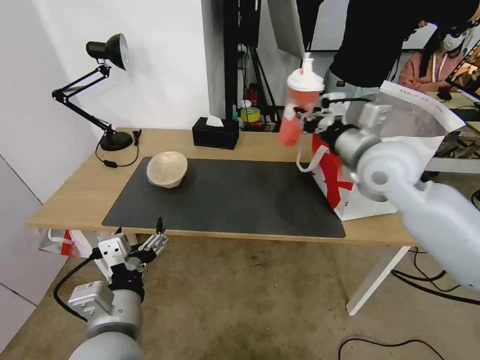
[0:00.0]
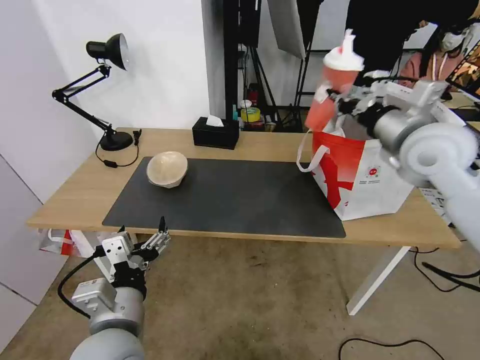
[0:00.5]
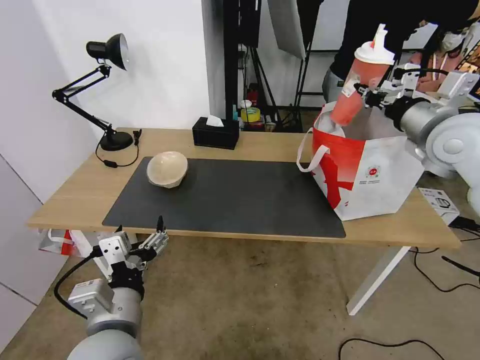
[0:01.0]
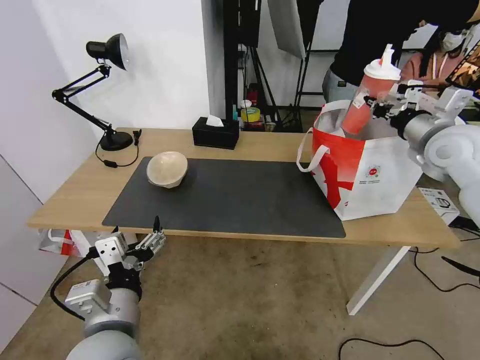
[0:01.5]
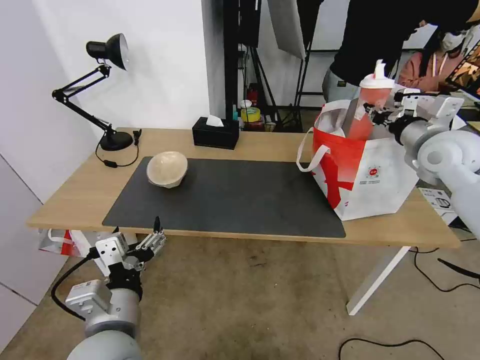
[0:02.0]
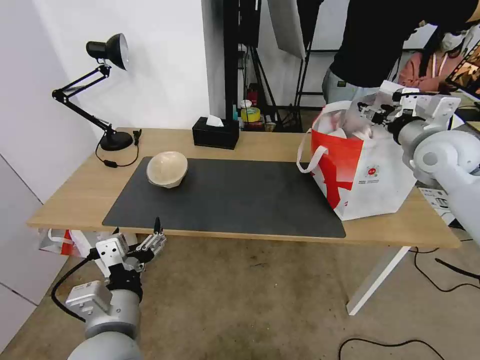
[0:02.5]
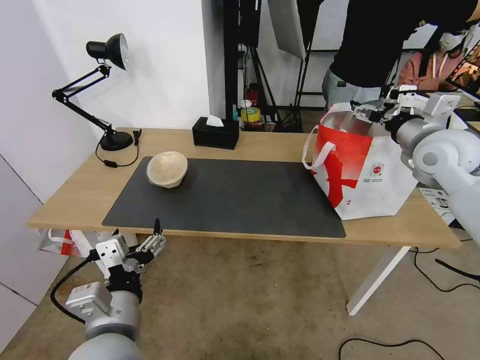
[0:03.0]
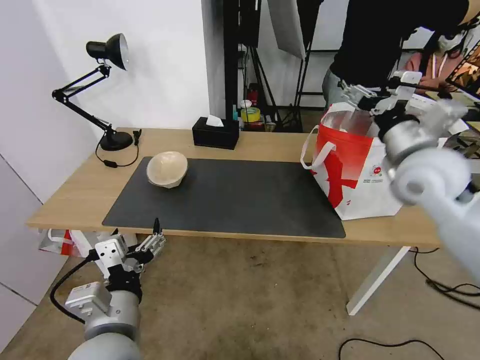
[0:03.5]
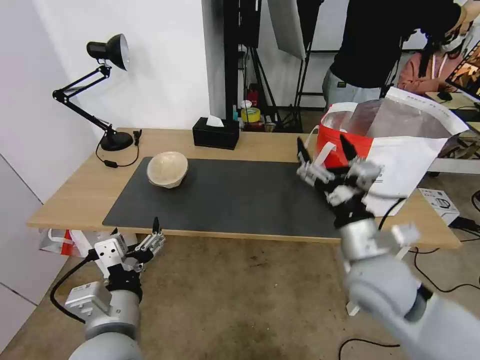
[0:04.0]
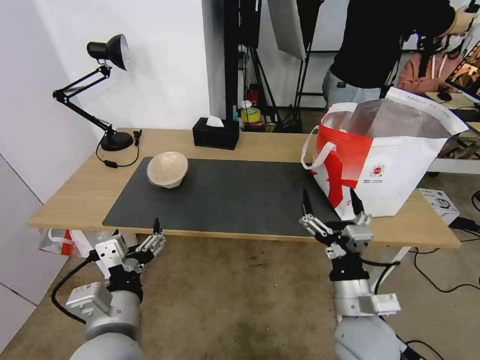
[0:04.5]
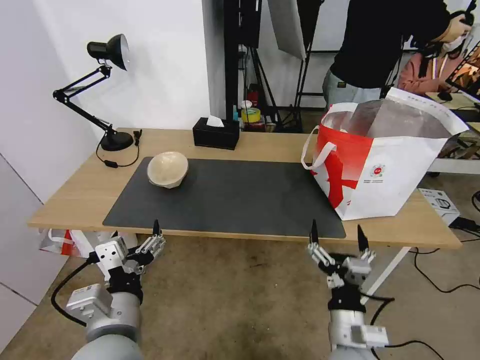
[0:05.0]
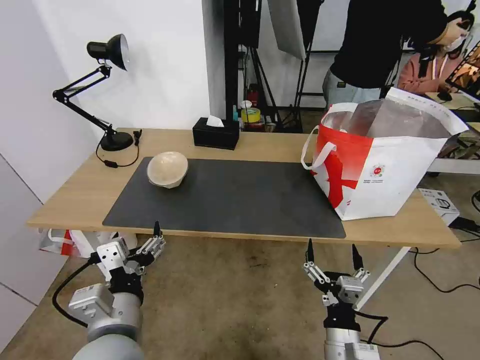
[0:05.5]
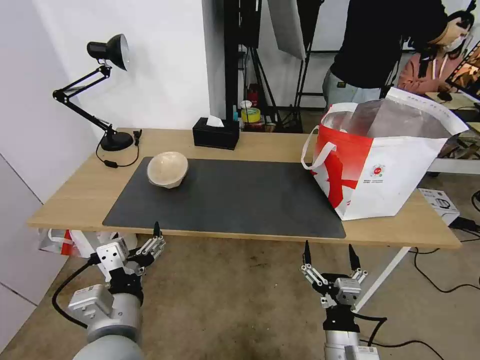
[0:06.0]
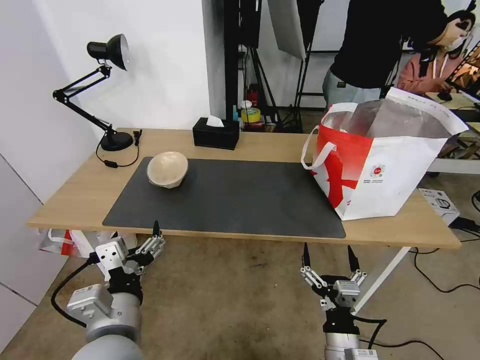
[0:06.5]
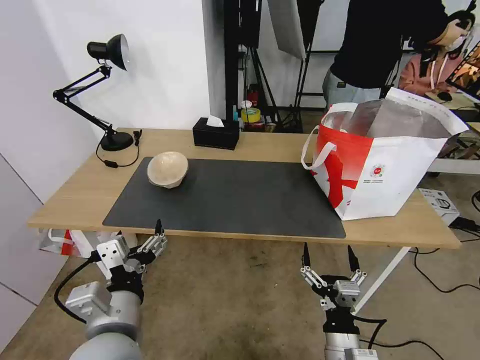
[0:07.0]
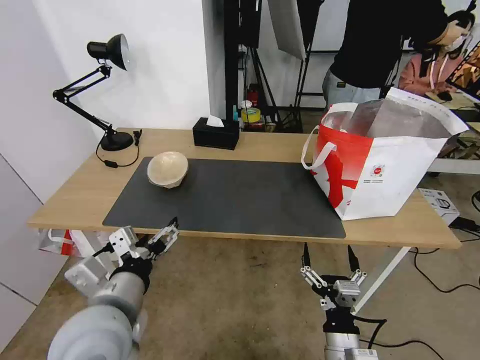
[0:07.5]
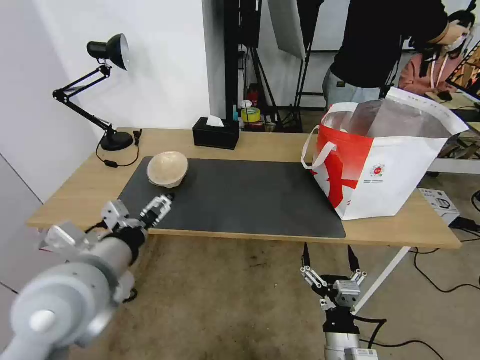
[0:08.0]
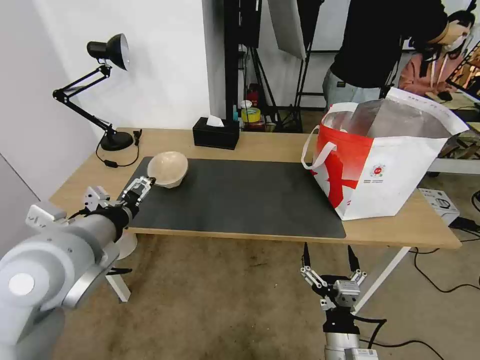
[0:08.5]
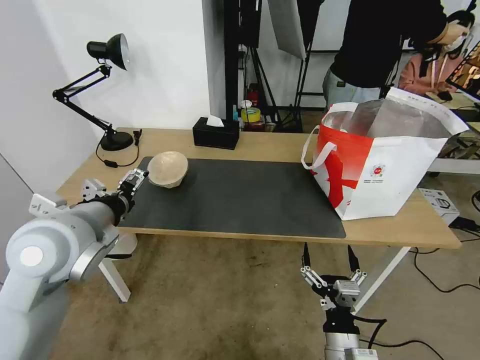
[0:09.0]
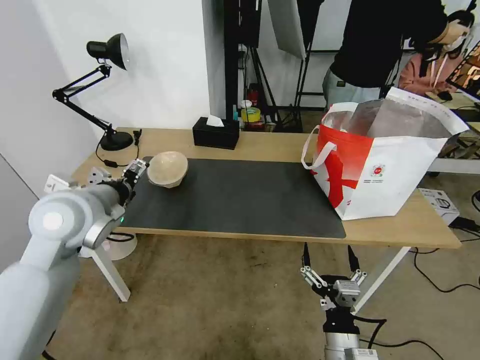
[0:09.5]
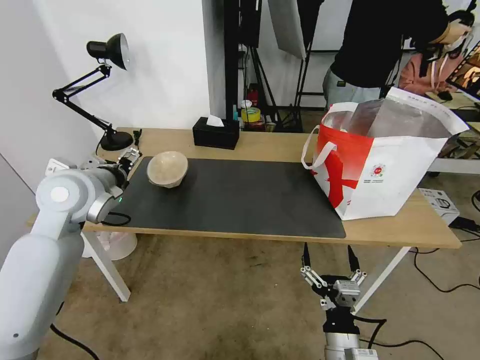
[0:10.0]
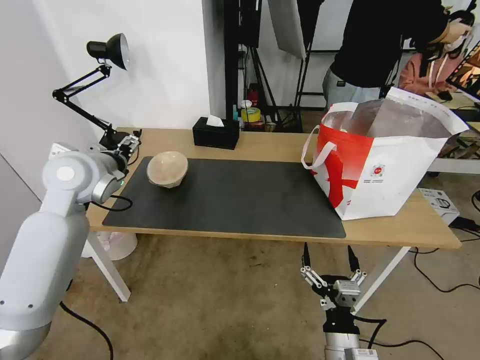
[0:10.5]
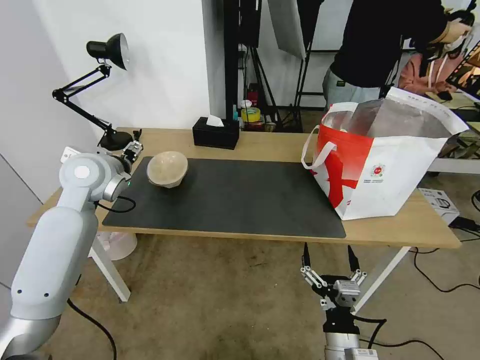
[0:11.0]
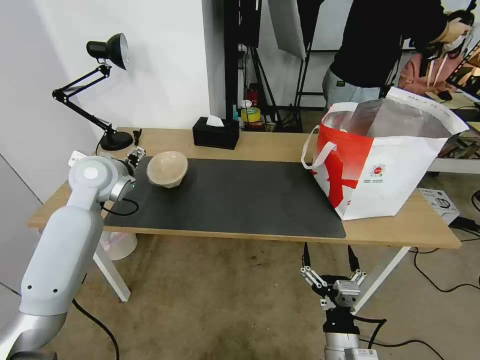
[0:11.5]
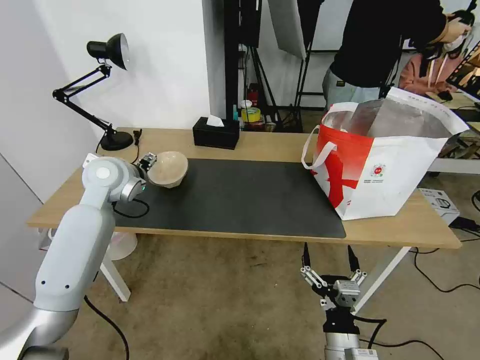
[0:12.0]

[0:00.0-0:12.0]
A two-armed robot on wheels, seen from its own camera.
Task of the whole recording: Pick up the trash from the table and place it into the takeout bag.
0:00.0 to 0:02.0: The right gripper heads to the right, covering approximately 15 cm.
0:02.0 to 0:04.0: The right gripper shifts roughly 30 cm backward, to the left and downward, and opens.
0:04.0 to 0:06.0: The right gripper moves downward and backward, about 20 cm.
0:06.0 to 0:08.0: The left gripper shifts approximately 10 cm upward and forward.
0:08.0 to 0:10.0: The left gripper is displaced forward and to the left by approximately 20 cm.
0:10.0 to 0:12.0: The left gripper goes approximately 10 cm forward.

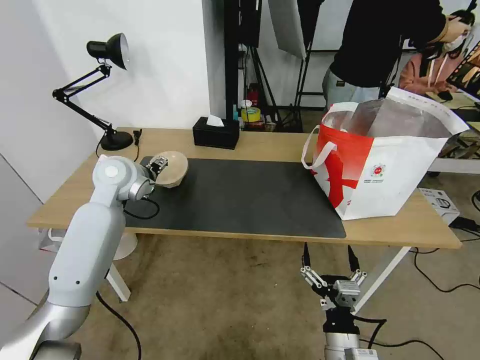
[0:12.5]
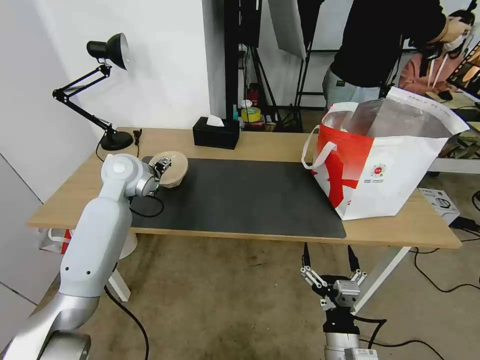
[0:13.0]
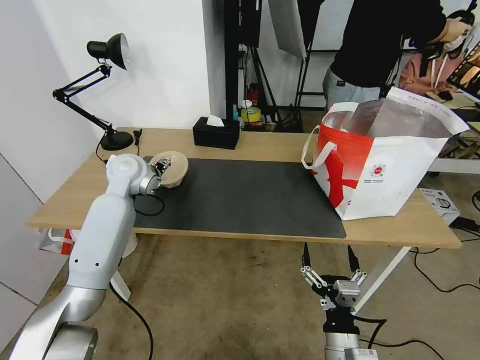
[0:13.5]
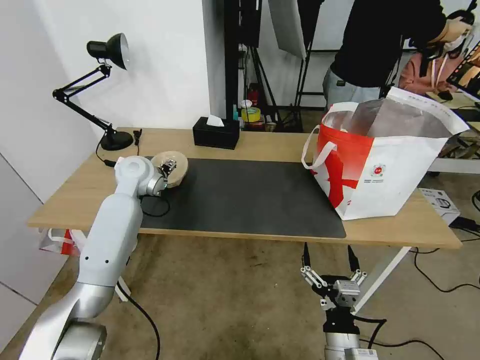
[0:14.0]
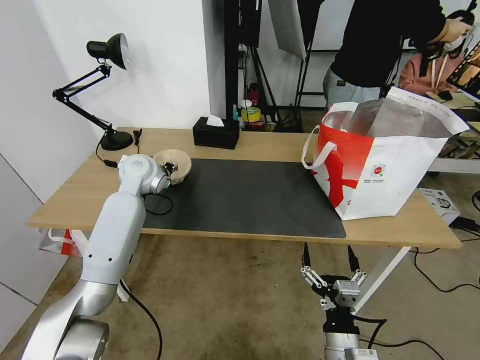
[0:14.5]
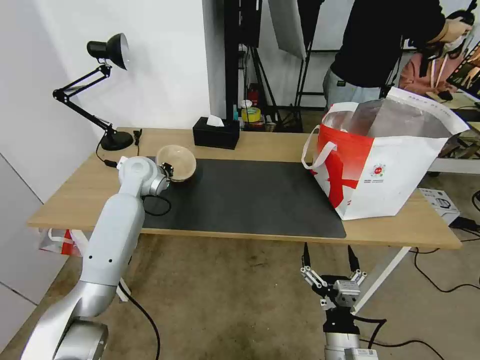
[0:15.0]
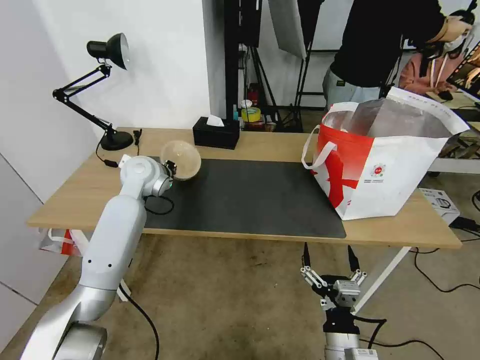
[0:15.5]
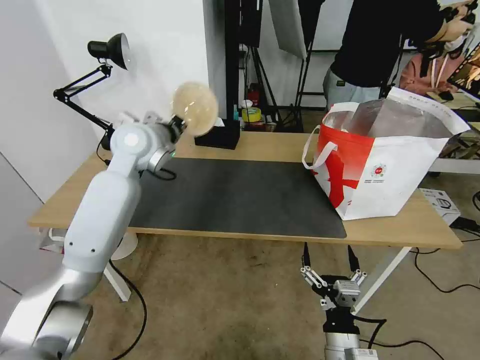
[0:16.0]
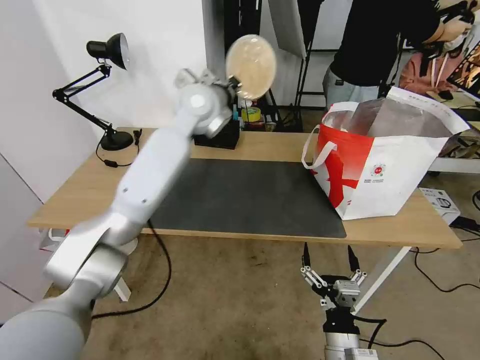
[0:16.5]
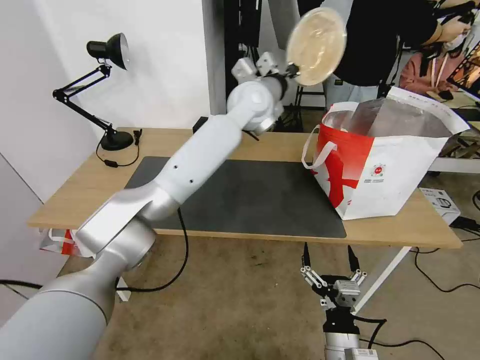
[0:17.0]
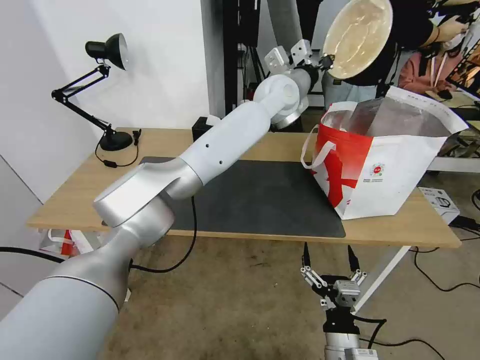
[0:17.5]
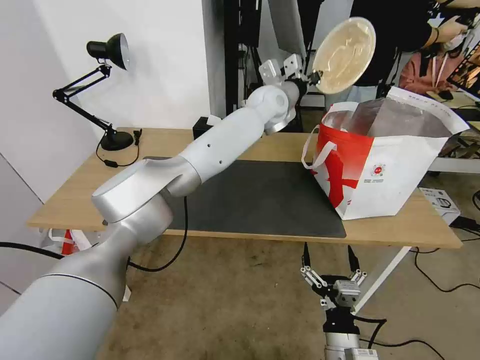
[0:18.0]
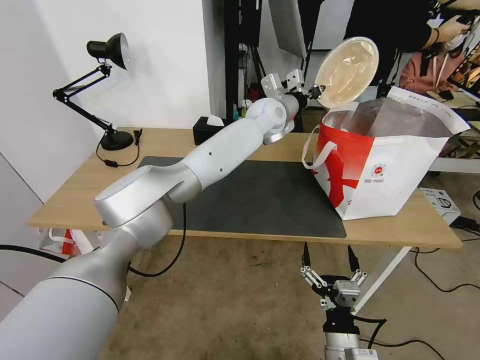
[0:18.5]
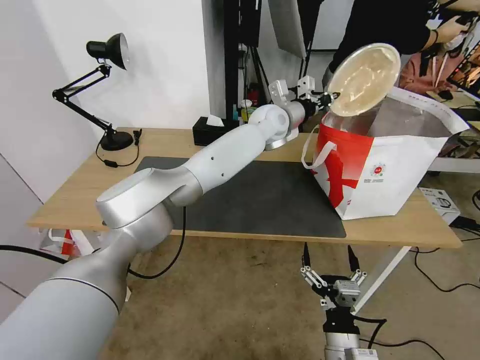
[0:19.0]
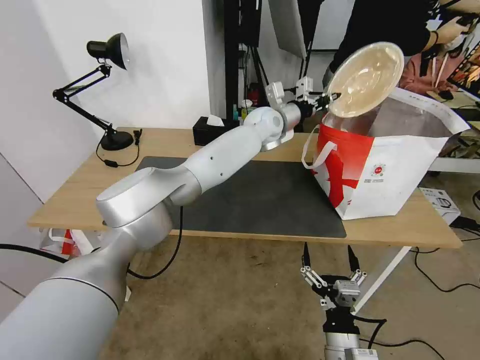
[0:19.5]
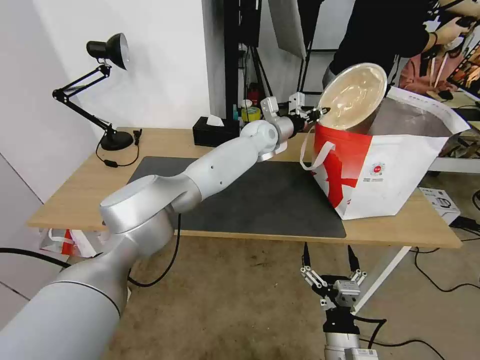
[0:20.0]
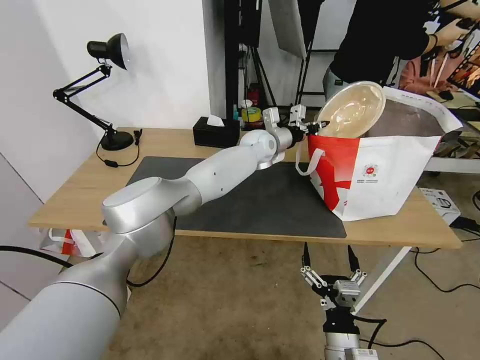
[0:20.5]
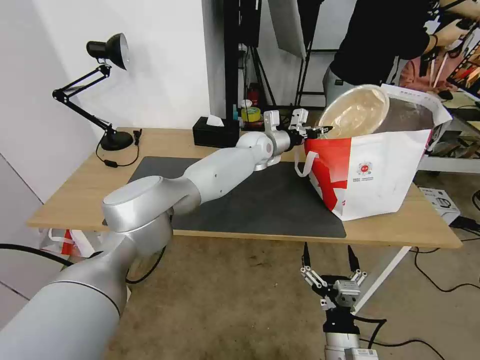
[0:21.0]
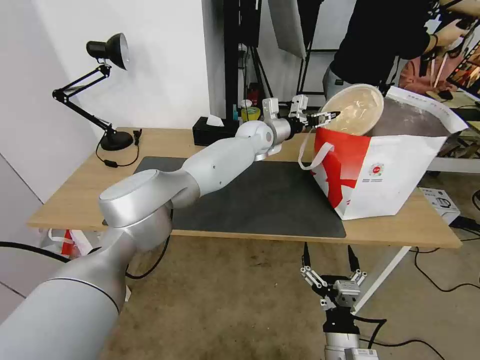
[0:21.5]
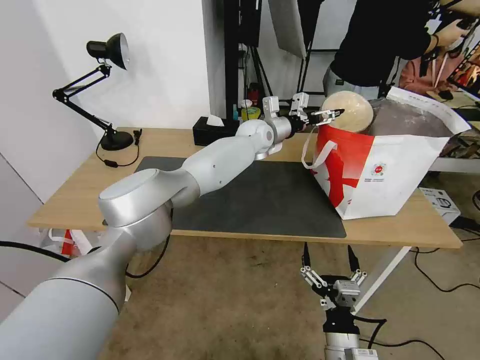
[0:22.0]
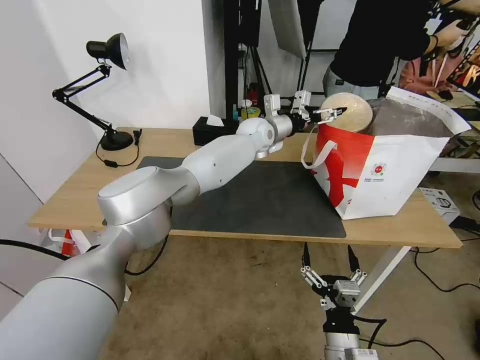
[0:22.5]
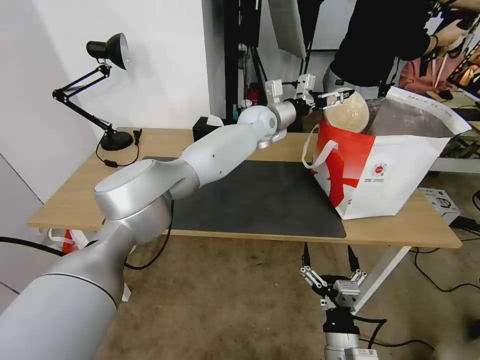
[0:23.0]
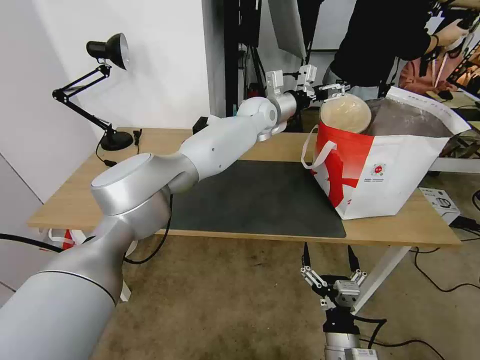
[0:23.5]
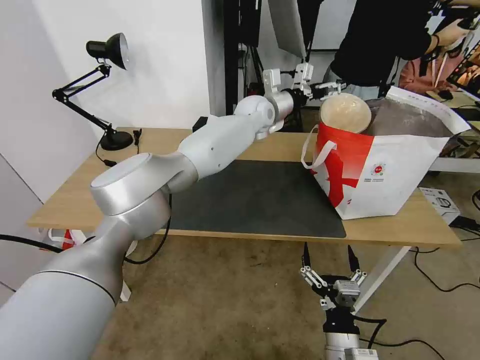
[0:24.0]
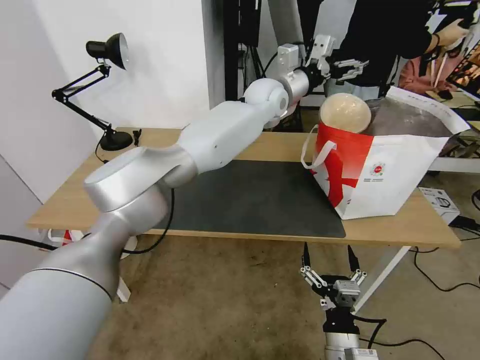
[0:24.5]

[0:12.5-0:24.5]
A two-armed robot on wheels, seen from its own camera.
Task of the whole recording: Pick up the trash from the table and place it into the takeout bag.
0:12.5 to 0:14.5: The left gripper travels forward by roughly 5 cm, and closes.
0:14.5 to 0:16.5: The left gripper heads to the right and upward, covering approximately 20 cm, and closes.
0:16.5 to 0:18.5: The left gripper heads to the right and forward, covering approximately 15 cm.
0:18.5 to 0:20.5: The left gripper moves downward, about 10 cm.
0:20.5 to 0:22.5: The left gripper opens its fingers.
0:22.5 to 0:24.5: The left gripper travels upward by roughly 10 cm.

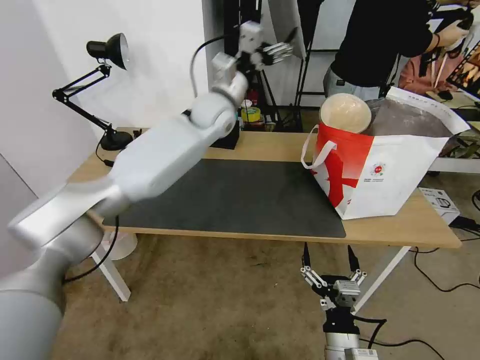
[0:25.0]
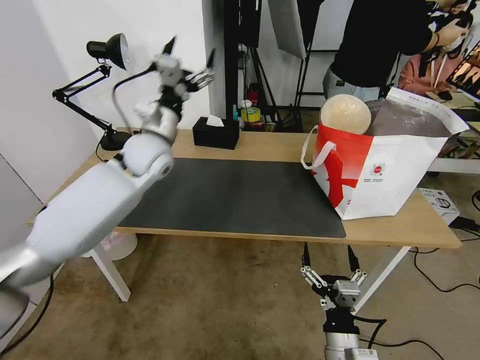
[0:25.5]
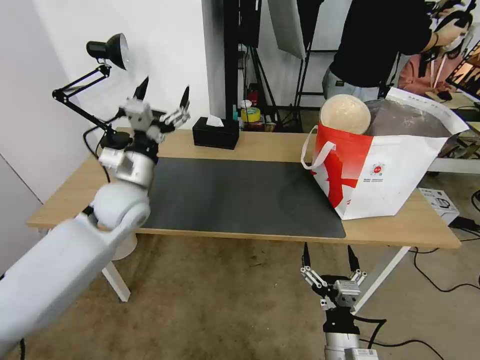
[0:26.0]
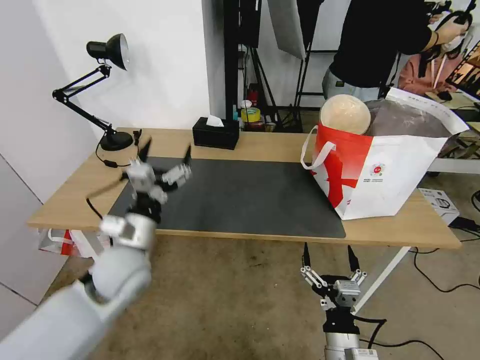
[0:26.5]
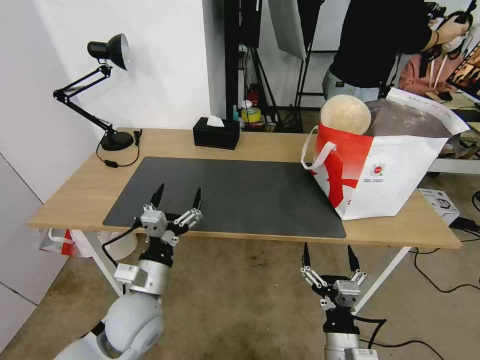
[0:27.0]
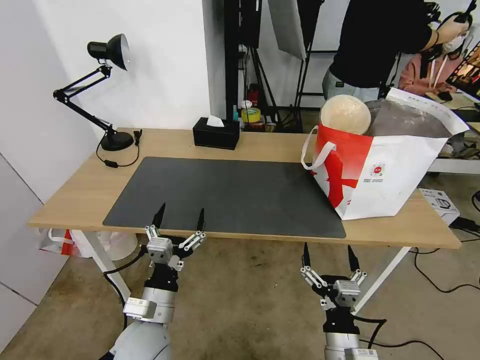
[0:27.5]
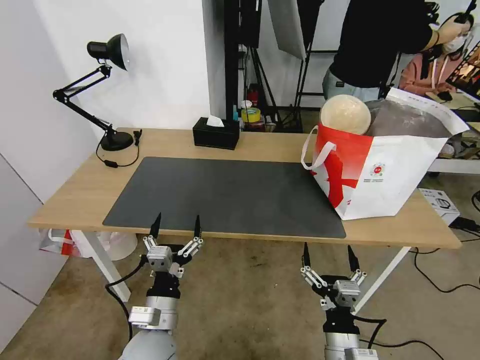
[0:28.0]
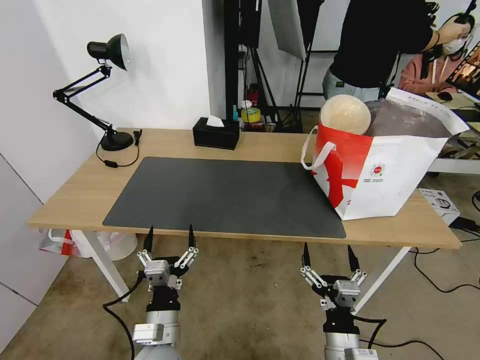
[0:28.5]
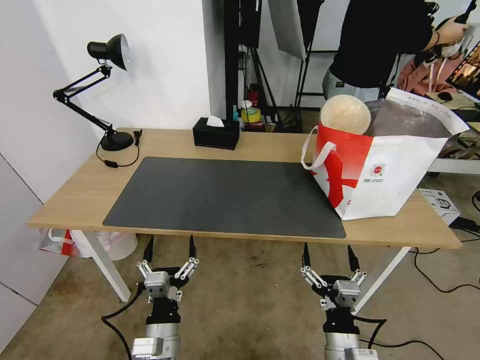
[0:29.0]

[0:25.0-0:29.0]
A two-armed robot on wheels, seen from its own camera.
Task of the whole recording: Pick up the trash from the table and place it into the takeout bag.
0:25.0 to 0:27.0: The left gripper goes some 40 cm backward and downward.
0:27.0 to 0:29.0: The left gripper is displaced backward and downward by roughly 10 cm.
